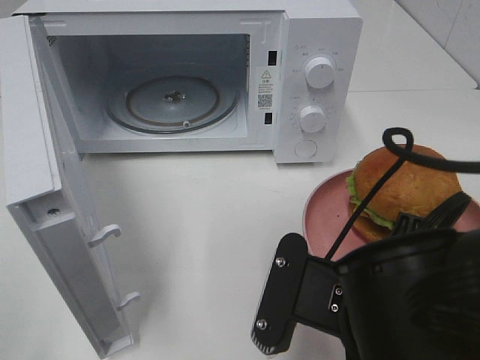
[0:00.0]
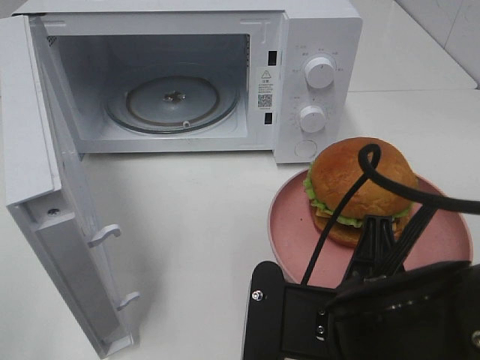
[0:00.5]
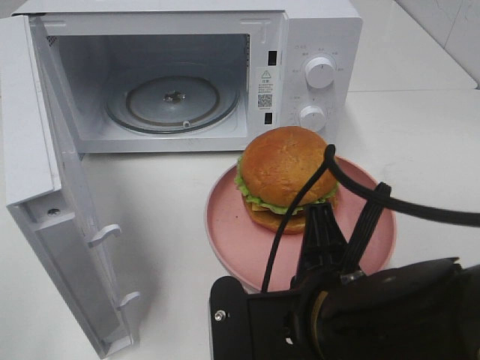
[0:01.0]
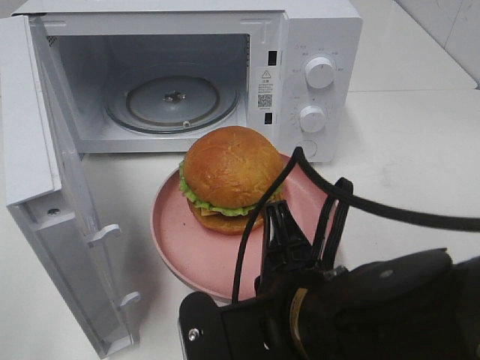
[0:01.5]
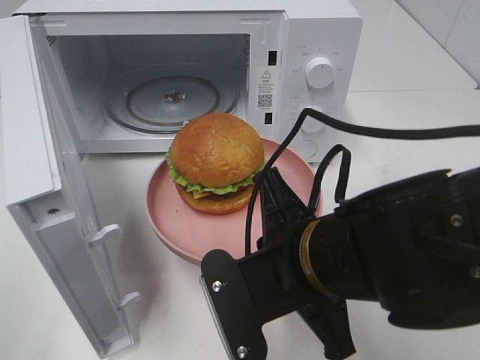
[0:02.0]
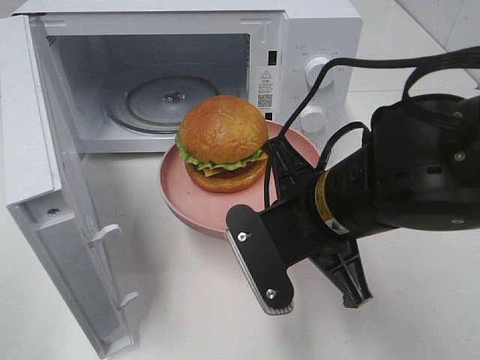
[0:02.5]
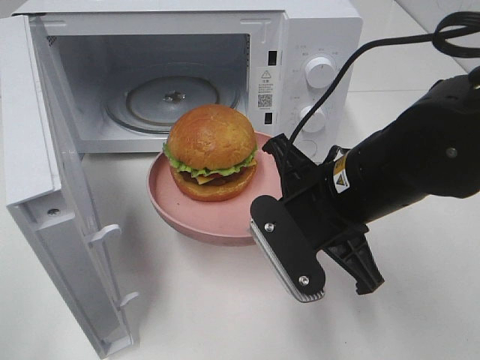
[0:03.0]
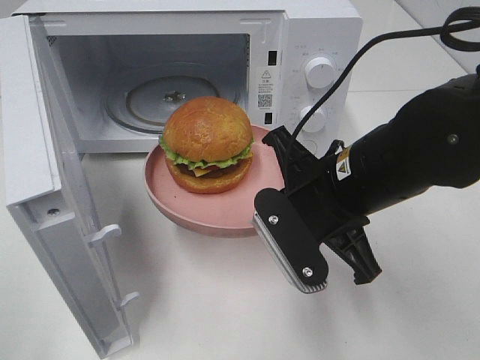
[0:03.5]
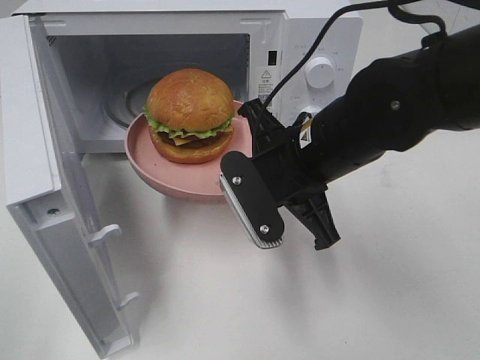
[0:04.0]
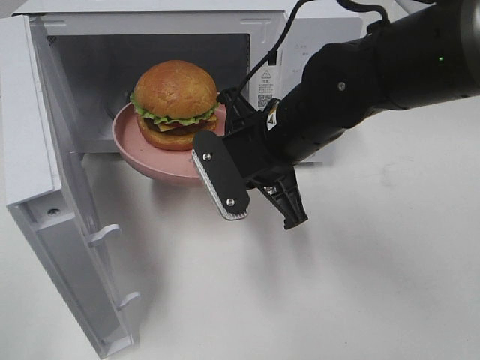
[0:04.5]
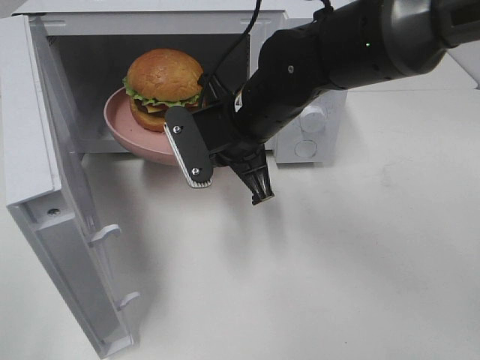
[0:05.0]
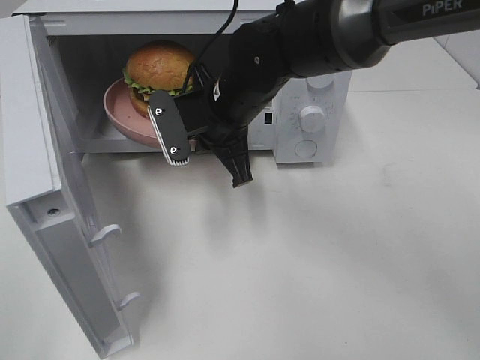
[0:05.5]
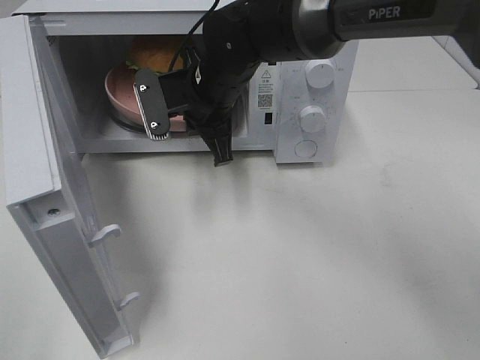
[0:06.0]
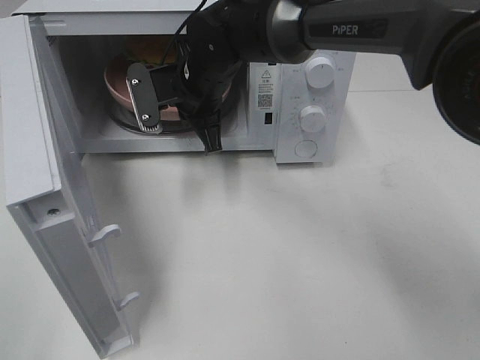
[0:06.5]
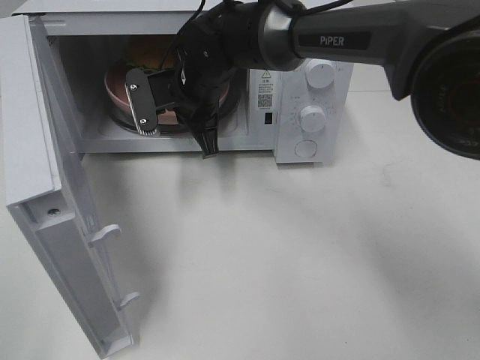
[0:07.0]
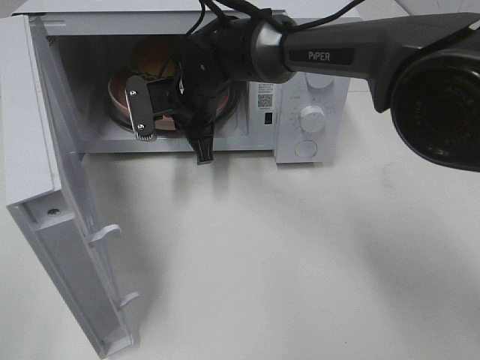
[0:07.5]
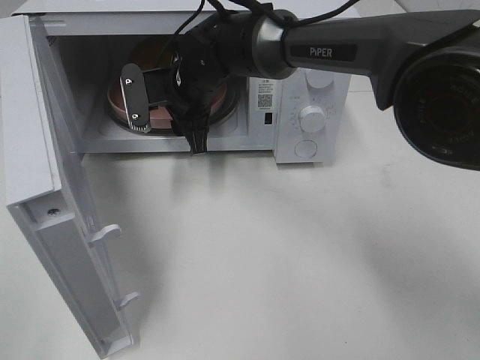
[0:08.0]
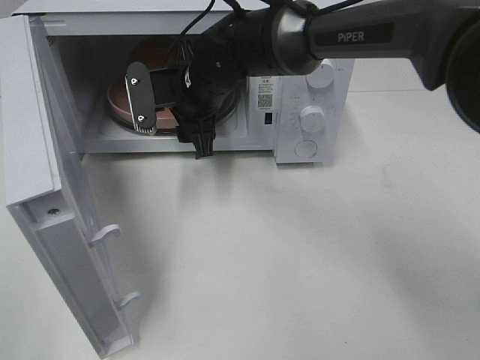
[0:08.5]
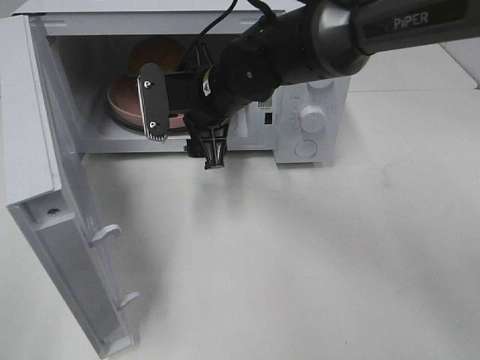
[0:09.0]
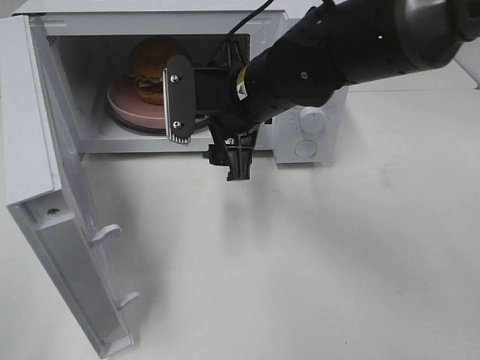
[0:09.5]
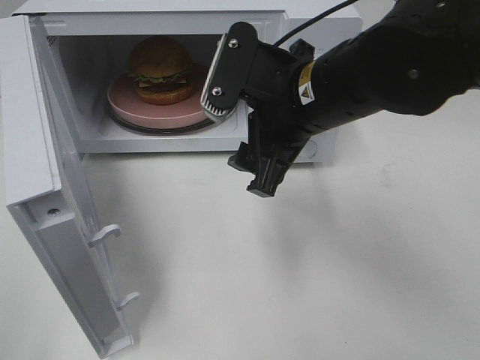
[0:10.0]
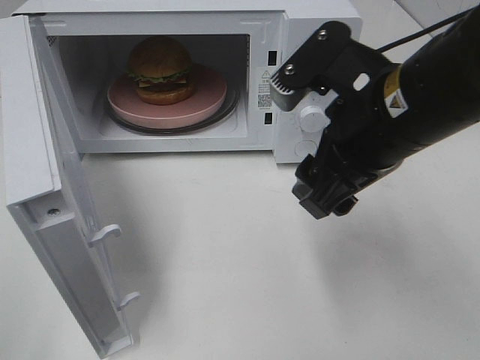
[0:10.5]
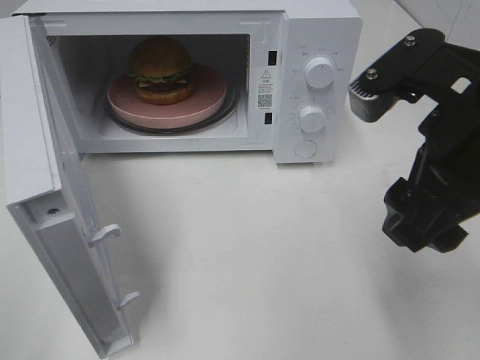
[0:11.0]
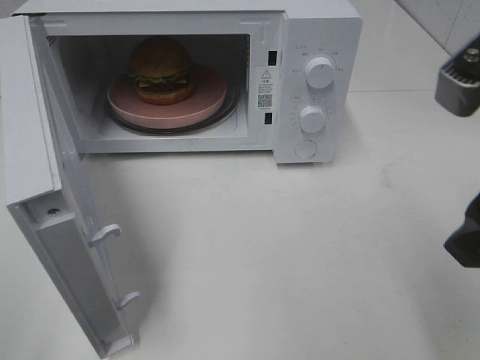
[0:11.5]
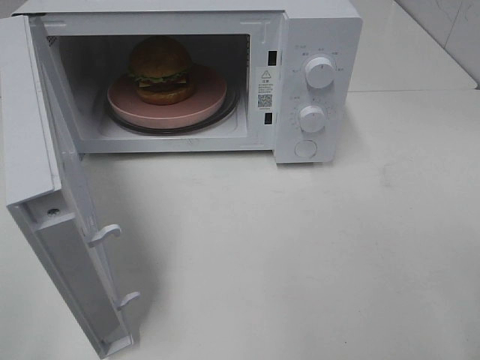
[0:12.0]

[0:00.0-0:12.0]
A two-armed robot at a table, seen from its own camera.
Task of the whole recording: Heat the burger.
Step, 0:00.0 to 0:07.5: Right hand: place the plate in the microwave.
0:00.0 to 0:02.0: The right gripper shifts by some 5 cm.
0:02.0 to 0:04.0: The right gripper heads forward, covering approximately 10 cm.
0:04.0 to 0:06.0: The right gripper shifts roughly 15 cm forward and to the left.
0:06.0 to 0:08.0: The right gripper changes place by some 5 cm, and opens up.
0:08.0 to 0:10.0: The right gripper moves backward, to the right and upward, approximately 20 cm.
0:10.0 to 0:12.0: The right gripper moves backward and to the right, some 25 cm.

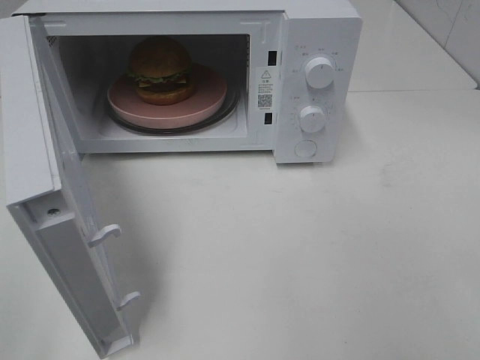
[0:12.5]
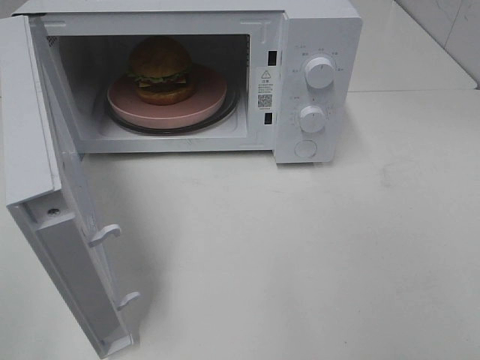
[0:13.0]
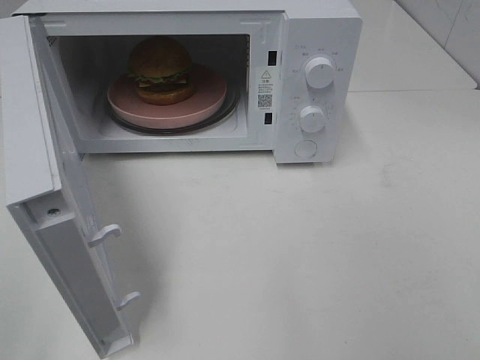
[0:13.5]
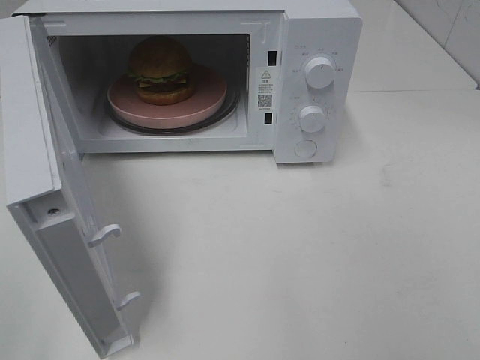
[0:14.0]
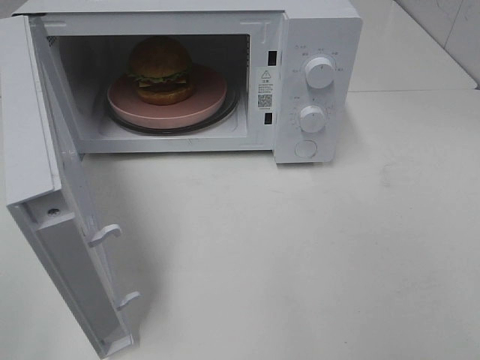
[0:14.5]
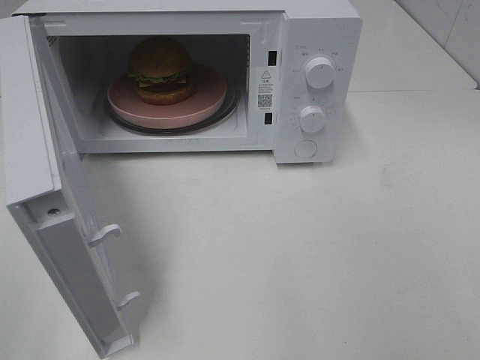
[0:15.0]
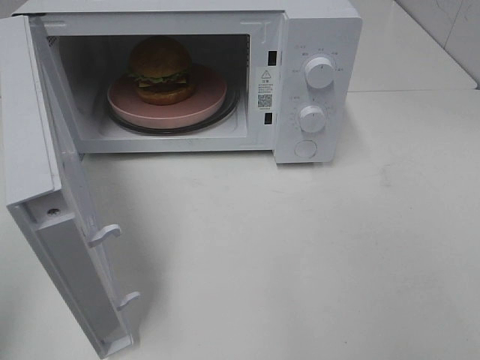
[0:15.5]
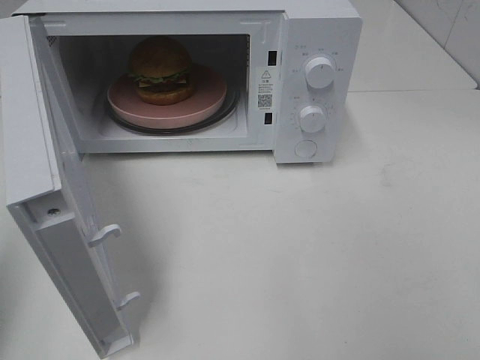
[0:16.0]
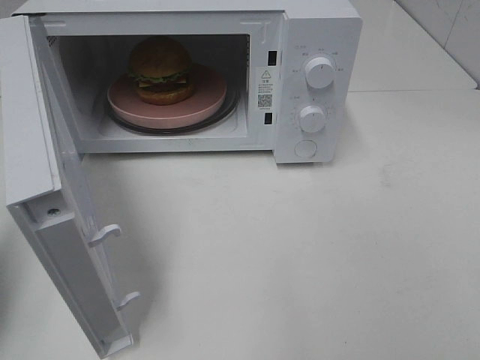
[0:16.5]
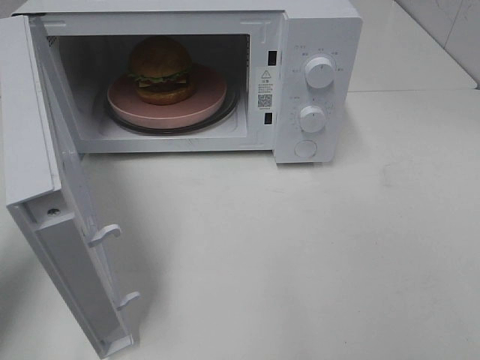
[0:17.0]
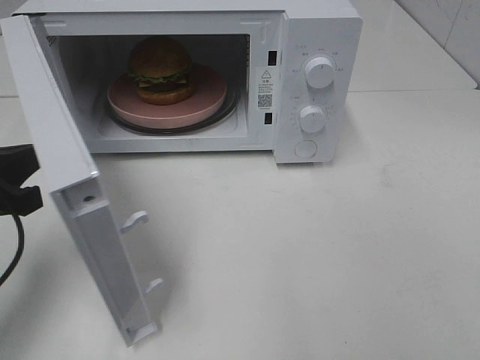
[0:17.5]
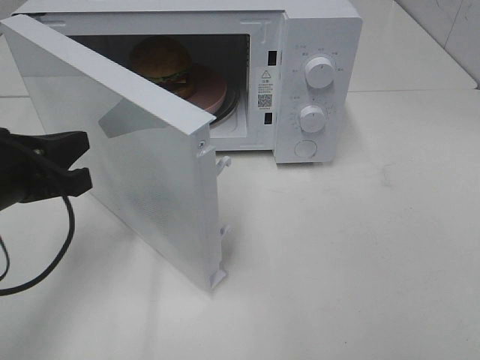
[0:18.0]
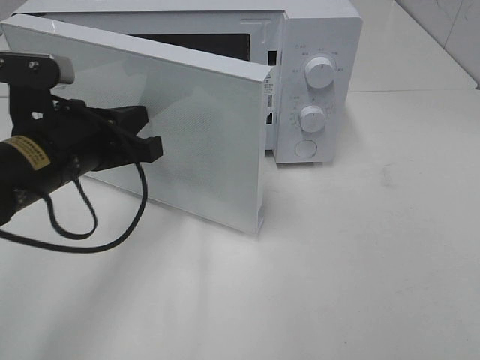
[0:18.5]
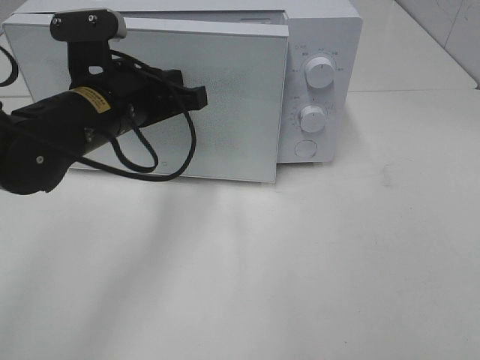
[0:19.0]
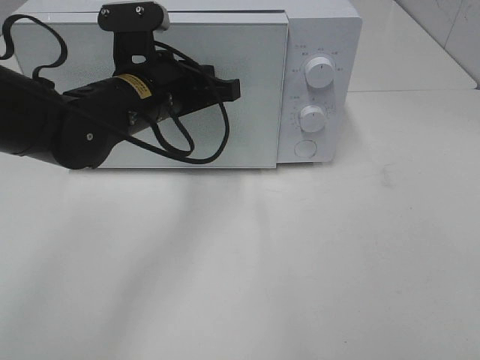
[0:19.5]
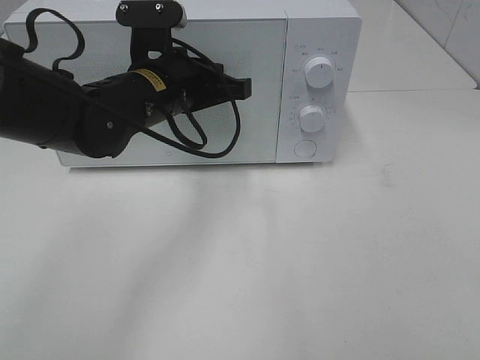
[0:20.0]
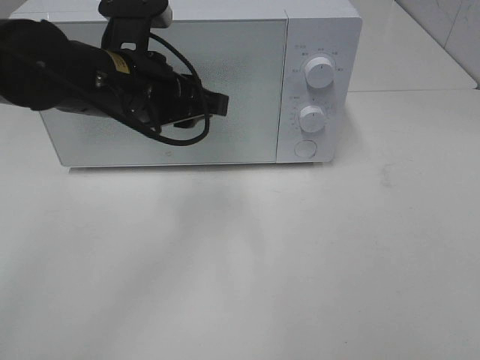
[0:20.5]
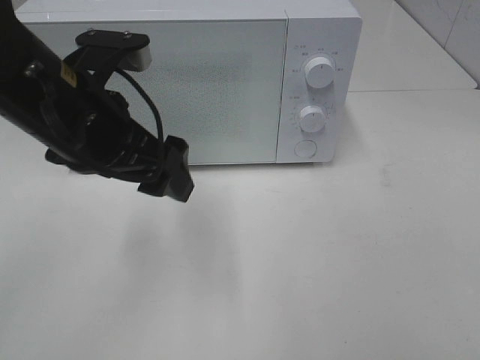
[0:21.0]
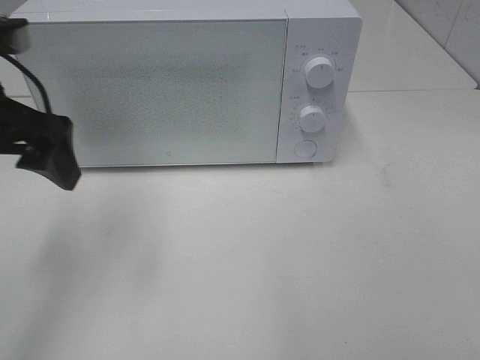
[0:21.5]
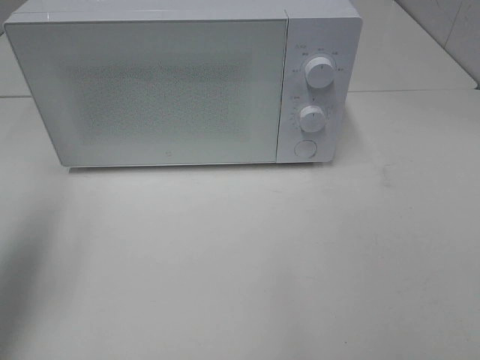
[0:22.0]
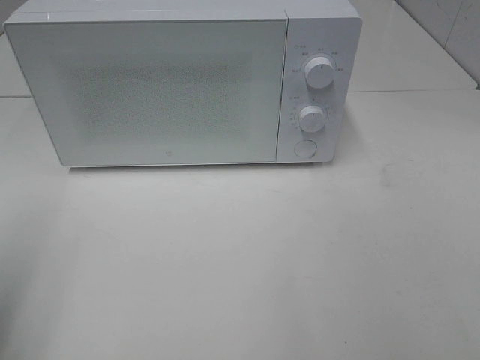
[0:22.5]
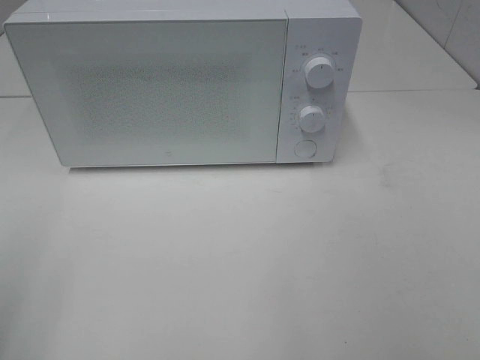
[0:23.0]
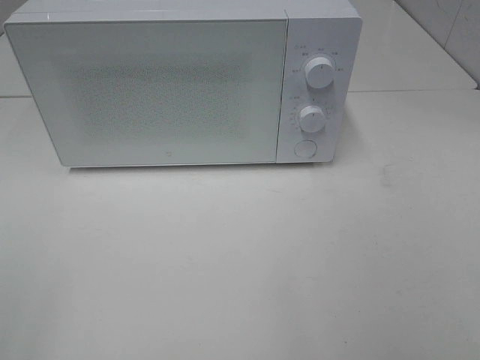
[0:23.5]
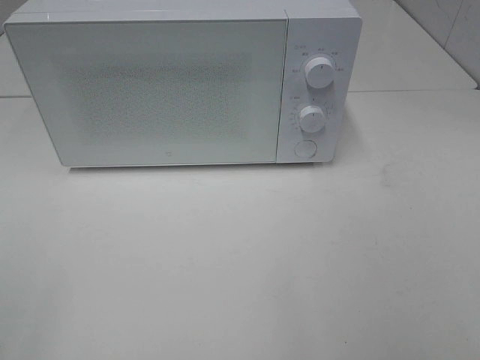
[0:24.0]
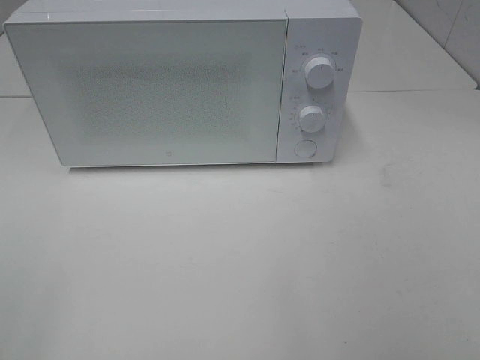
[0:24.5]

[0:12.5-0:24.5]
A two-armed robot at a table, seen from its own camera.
Task of the whole recording: Heat the burger.
Step, 0:12.5 to 0:20.0: Left hand: close the microwave door.
0:14.5 to 0:16.5: The left gripper heads forward, covering approximately 15 cm, and closes its fingers.
0:16.5 to 0:18.5: The left gripper shifts some 20 cm to the right and forward.
0:18.5 to 0:20.5: The left gripper heads to the right, covering roughly 5 cm, and opens.
0:20.5 to 0:22.5: The left gripper travels to the left and backward by roughly 30 cm, and opens.

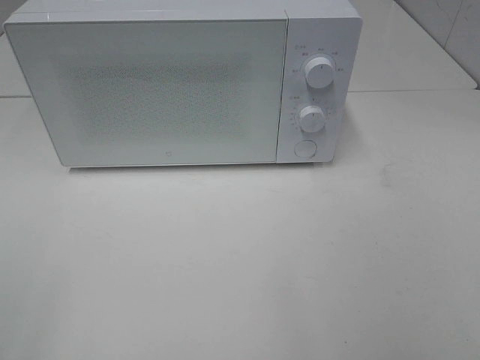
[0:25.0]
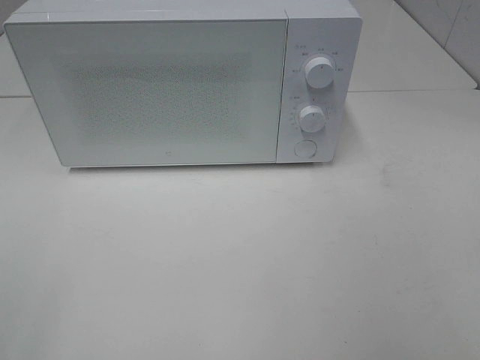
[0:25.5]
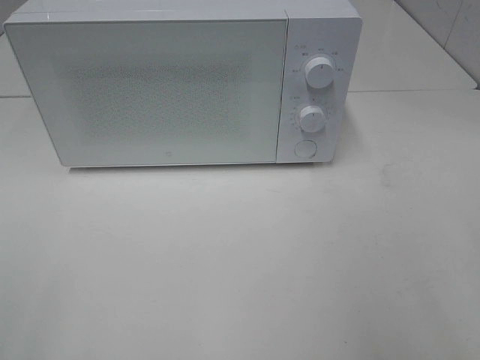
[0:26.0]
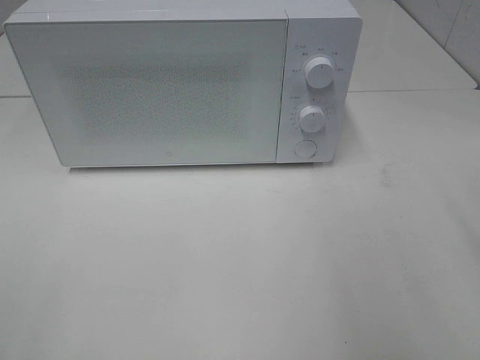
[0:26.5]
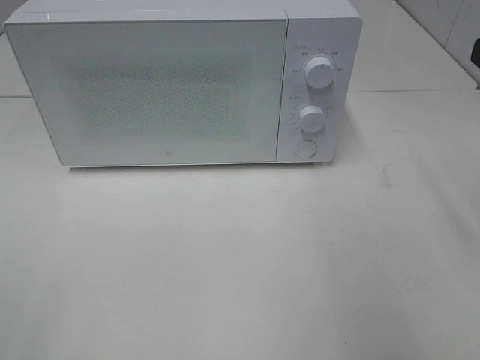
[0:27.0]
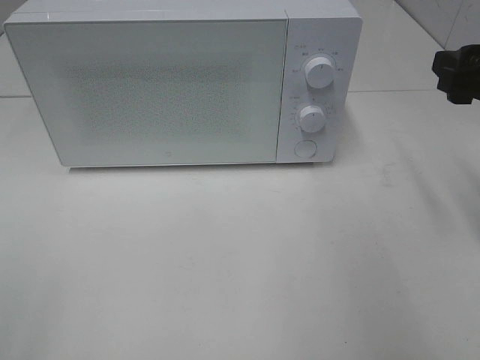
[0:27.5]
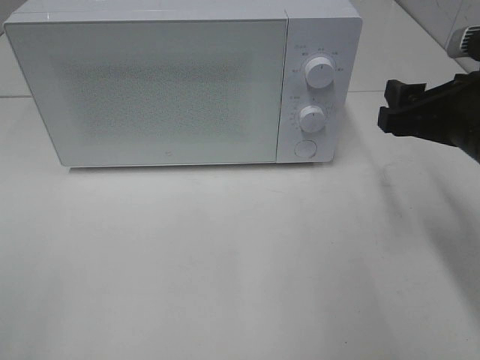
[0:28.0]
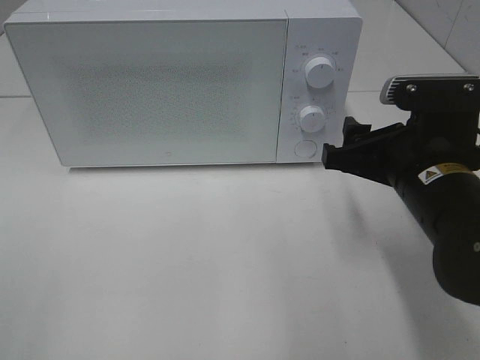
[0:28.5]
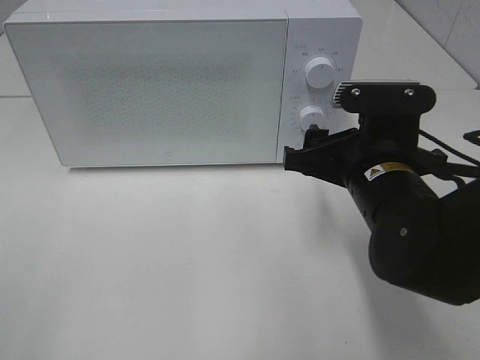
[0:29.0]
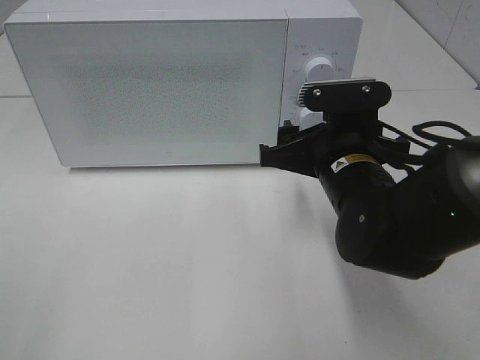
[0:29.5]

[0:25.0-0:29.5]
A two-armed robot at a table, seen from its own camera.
Task of the whole recording: Heat the burger.
0:27.0 to 0:29.5: The right gripper heads to the left and downward, covering roughly 20 cm.
